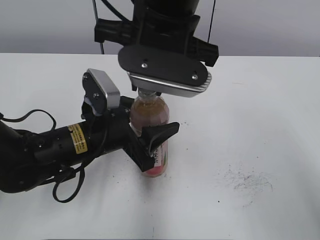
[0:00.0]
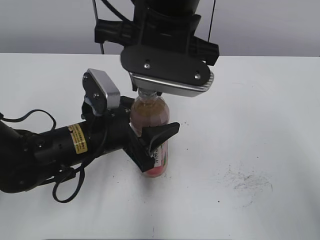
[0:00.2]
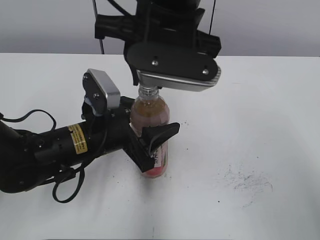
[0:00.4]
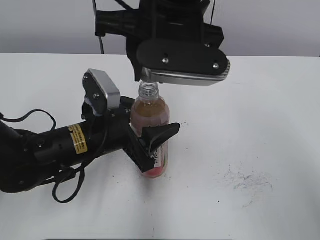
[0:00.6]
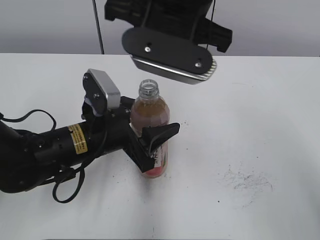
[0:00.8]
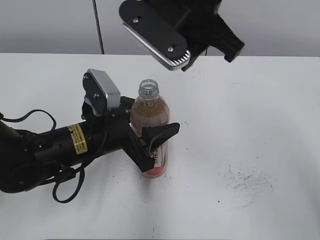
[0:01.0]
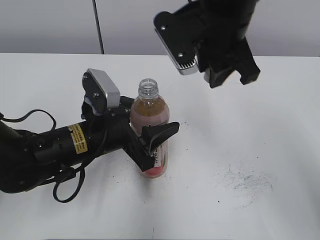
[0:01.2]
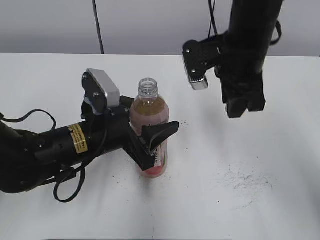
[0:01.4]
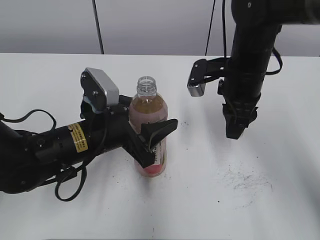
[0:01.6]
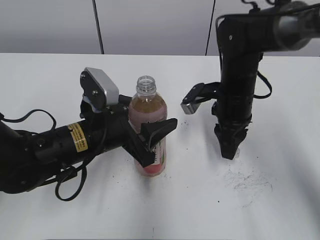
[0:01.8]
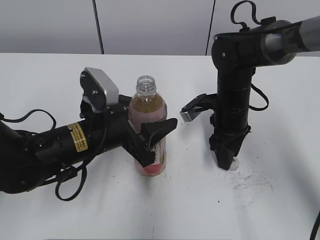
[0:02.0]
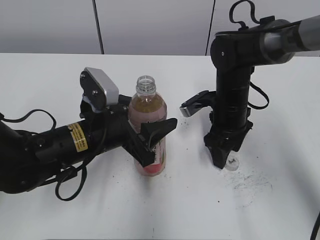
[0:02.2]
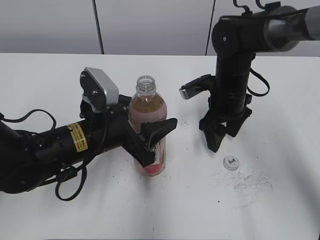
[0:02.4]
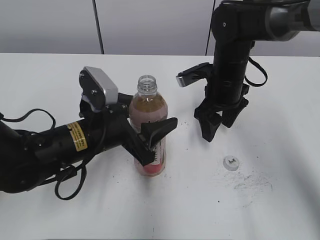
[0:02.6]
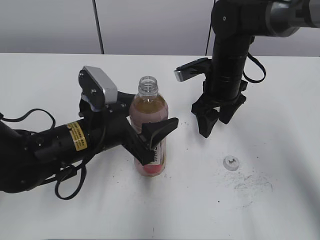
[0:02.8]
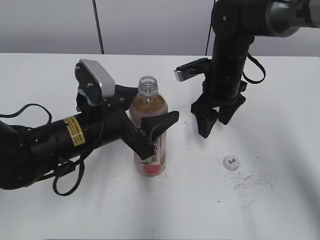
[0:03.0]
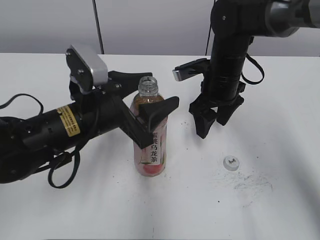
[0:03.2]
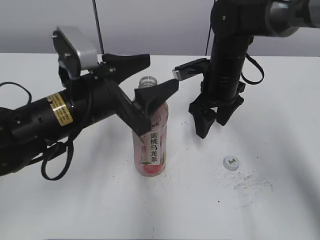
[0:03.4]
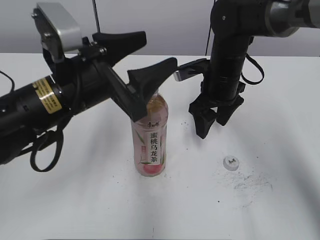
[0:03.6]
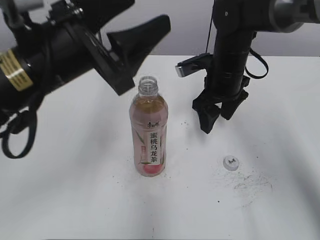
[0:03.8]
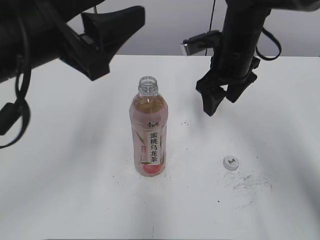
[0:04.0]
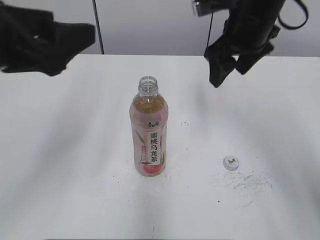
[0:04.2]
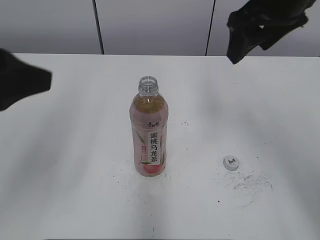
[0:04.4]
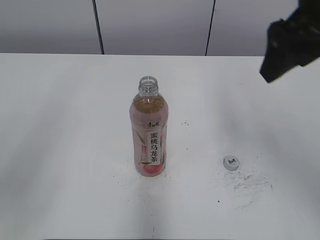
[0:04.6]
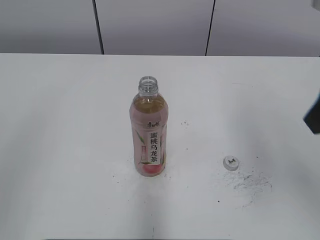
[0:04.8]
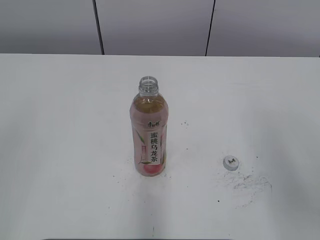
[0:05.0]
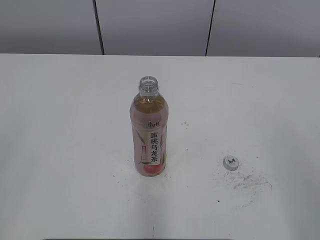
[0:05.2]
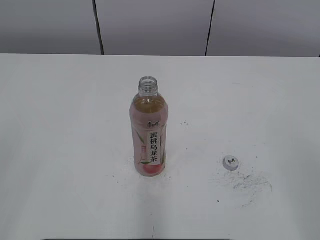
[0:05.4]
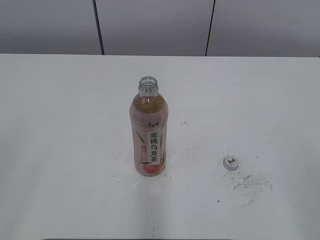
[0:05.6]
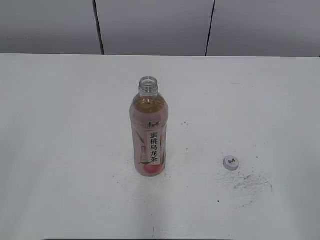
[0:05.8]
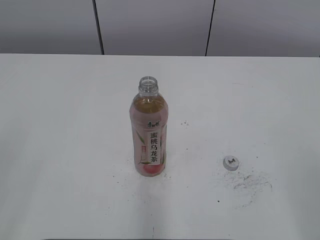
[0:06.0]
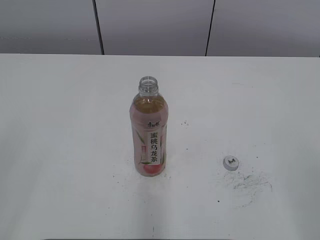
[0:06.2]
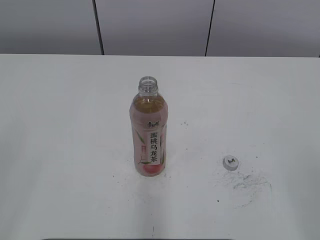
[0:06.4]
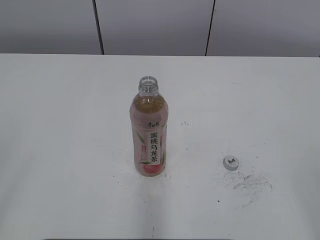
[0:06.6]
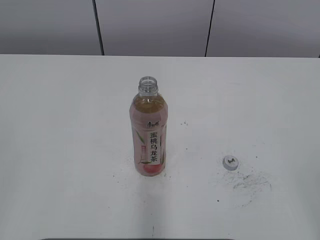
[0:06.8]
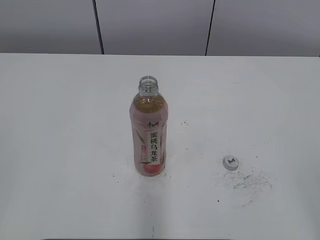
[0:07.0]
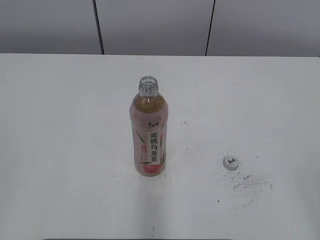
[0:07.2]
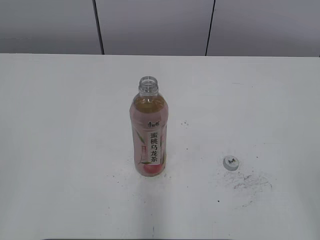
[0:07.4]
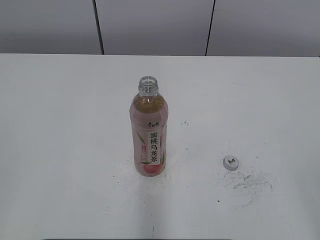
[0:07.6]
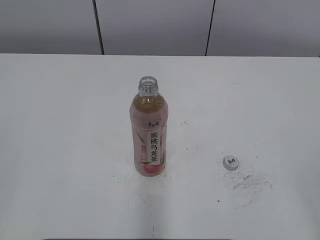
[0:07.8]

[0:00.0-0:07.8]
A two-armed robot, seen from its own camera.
Step, 0:00.2 to 0:02.0: Place the bottle cap on the right.
Step, 0:02.2 to 0:03.0: Place the Peach Oolong Tea with the left hand.
0:00.0 to 0:01.6: The right gripper is displaced to the right, downward and forward by about 20 cm.
0:01.6 to 0:03.2: The right gripper opens.
0:03.2 to 0:04.6: The right gripper is displaced upward and backward by about 25 cm, while the left gripper moves upward, to the left and backward, about 25 cm.
0:04.6 to 0:06.2: The right gripper heads backward and to the right, covering about 30 cm.

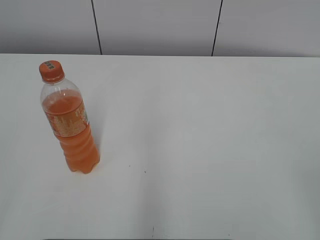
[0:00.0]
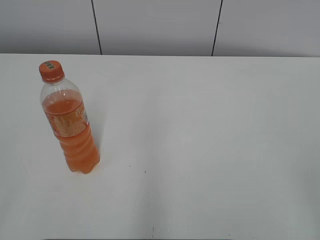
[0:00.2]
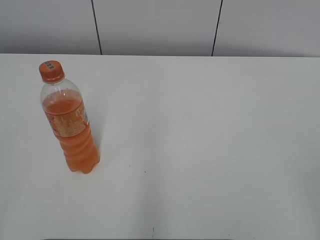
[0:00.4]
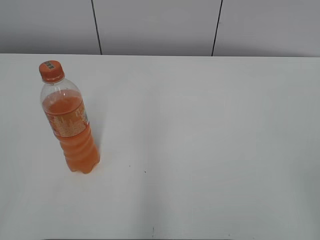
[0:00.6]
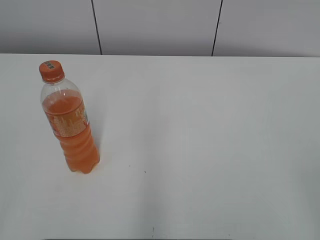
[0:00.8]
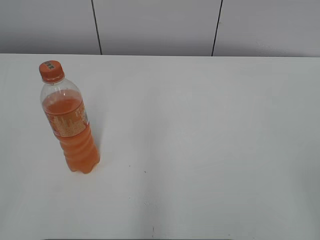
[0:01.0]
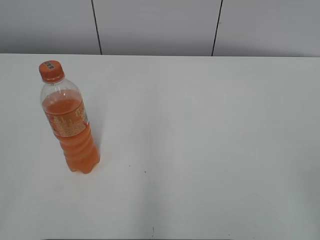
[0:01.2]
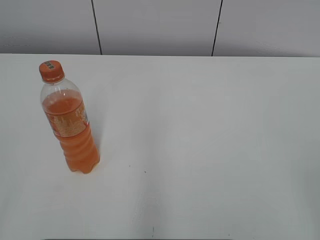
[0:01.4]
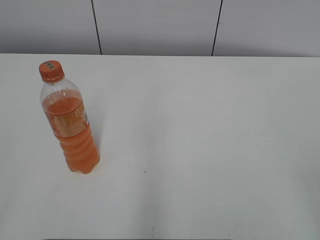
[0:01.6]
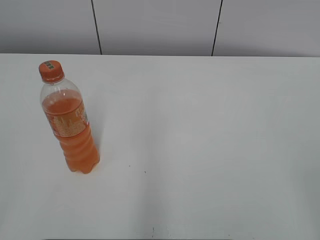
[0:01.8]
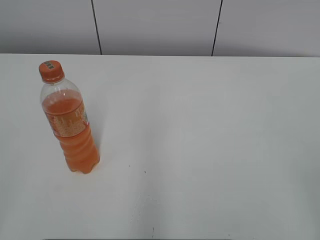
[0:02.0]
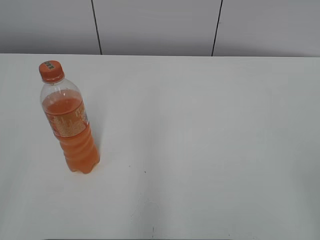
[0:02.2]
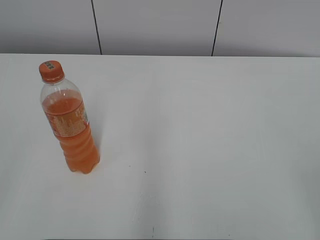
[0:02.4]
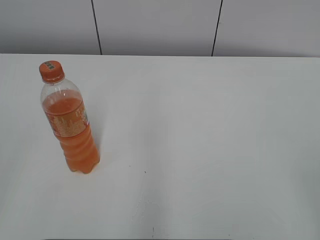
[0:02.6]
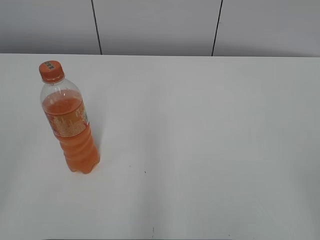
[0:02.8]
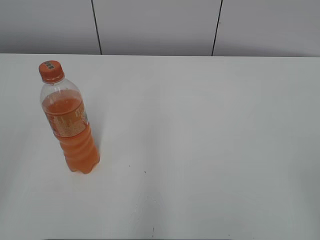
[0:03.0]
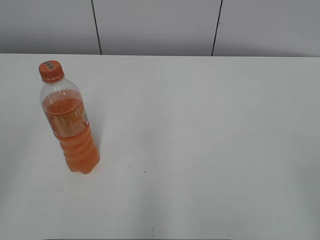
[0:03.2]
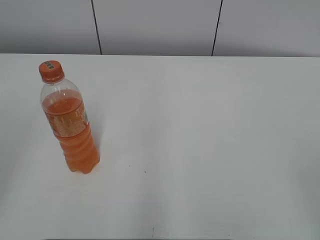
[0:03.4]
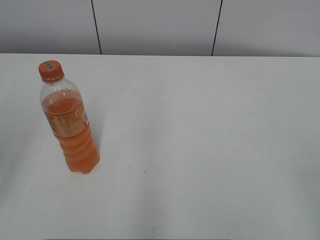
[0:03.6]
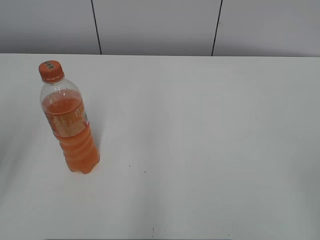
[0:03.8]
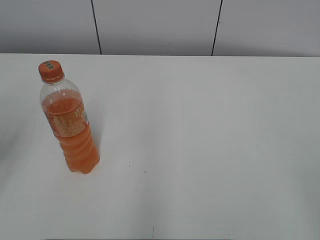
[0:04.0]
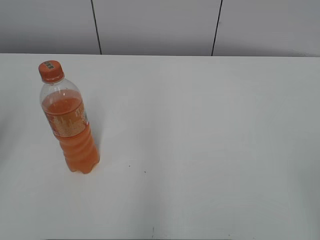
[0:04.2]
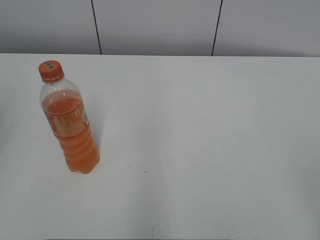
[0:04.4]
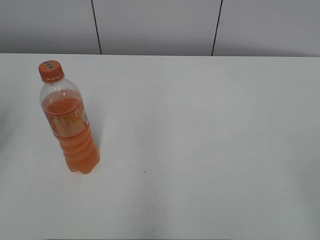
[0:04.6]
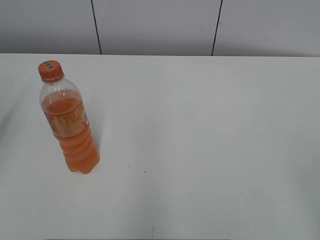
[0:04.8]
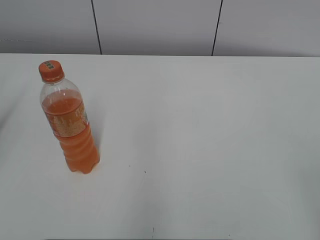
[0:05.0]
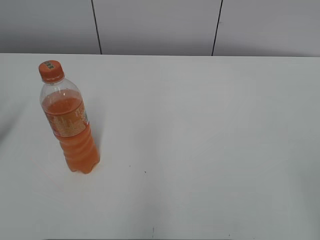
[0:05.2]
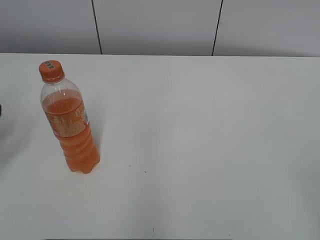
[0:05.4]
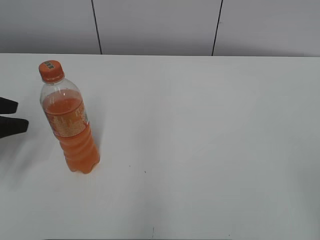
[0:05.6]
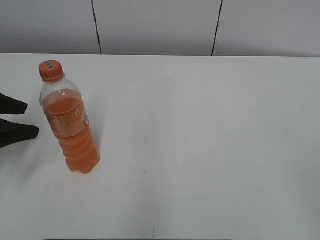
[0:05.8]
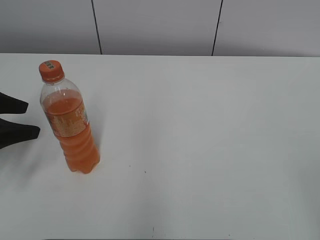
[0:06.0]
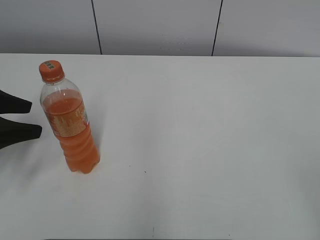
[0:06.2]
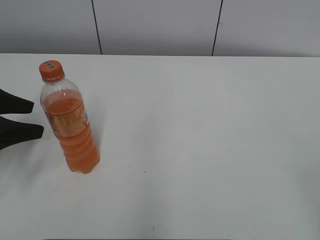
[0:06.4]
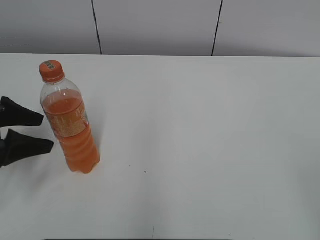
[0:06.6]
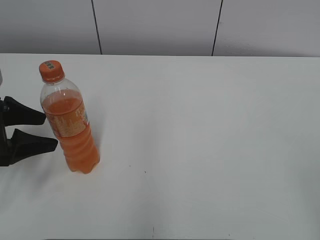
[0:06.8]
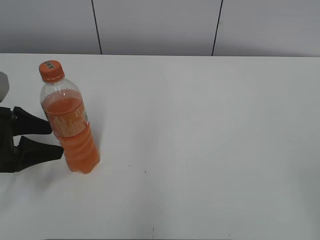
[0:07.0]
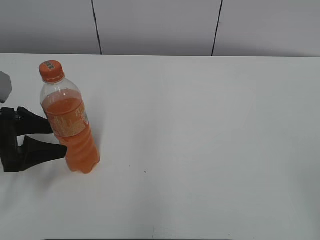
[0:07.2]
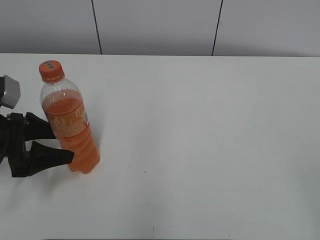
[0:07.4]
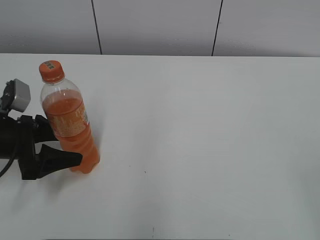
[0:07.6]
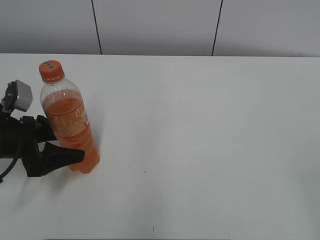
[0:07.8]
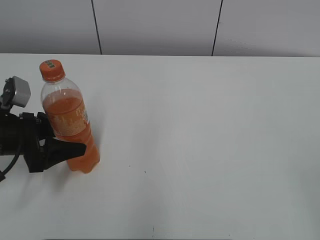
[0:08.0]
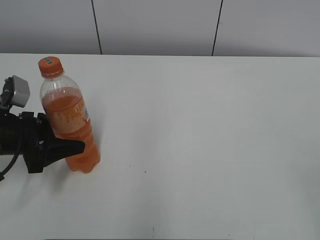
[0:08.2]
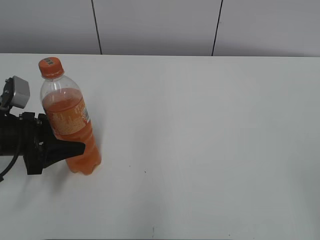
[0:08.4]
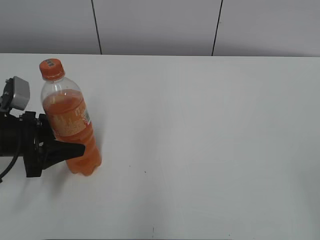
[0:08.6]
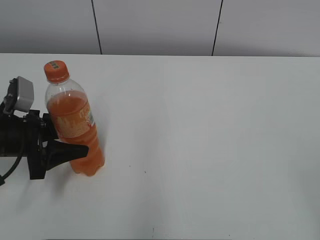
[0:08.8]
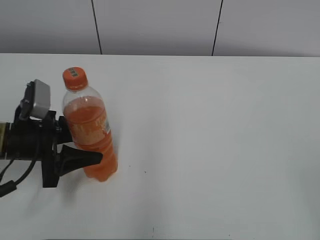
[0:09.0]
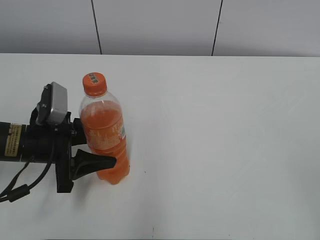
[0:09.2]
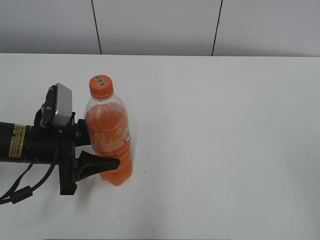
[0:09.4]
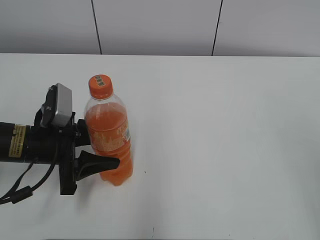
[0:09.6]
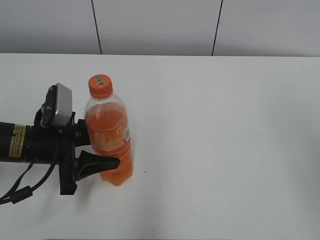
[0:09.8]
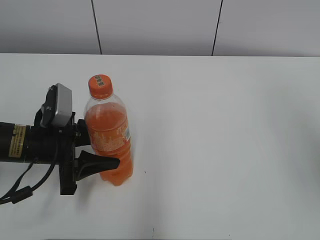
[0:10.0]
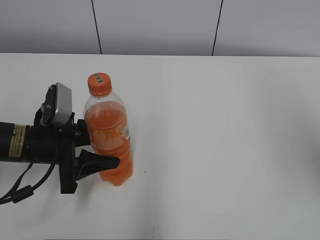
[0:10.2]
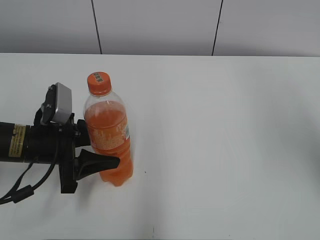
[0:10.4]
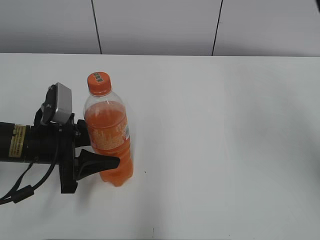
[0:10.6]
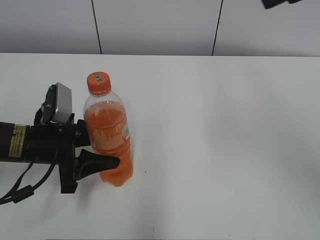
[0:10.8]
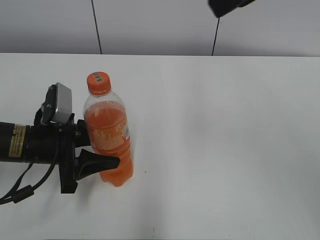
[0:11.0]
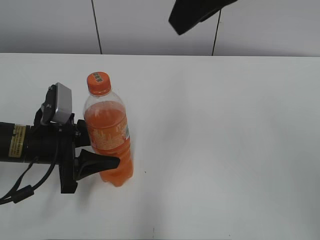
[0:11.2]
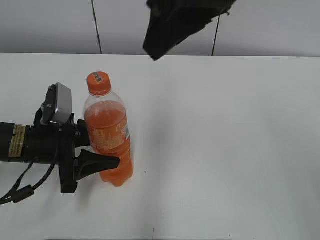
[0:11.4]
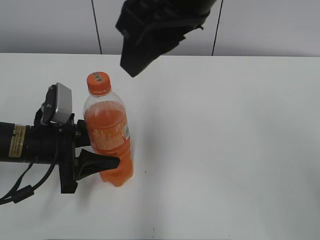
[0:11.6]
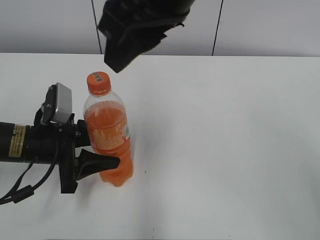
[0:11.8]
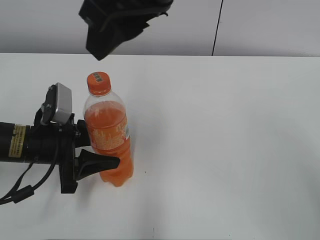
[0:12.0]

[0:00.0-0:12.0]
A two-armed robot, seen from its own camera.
Step, 0:00.0 to 0:08.2: Grab the Mirinda with the left hand.
Step, 0:08.4 to 0:10.2: Move the Mirinda from left to right.
0:04.4 to 0:06.0: The left gripper moves downward, roughly 10 cm.
0:06.0 to 0:07.6: The left gripper goes some 10 cm downward and to the right.
0:07.6 to 0:09.0: The left gripper closes its fingers.
0:09.0 to 0:10.4: The right gripper heads forward and upward, covering about 25 cm, and closes.
0:10.4 to 0:12.0: The right gripper is displaced to the left by about 25 cm.

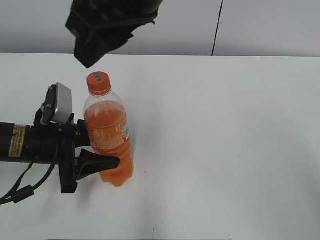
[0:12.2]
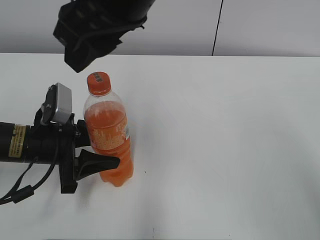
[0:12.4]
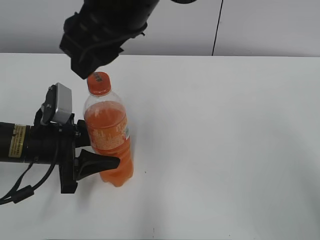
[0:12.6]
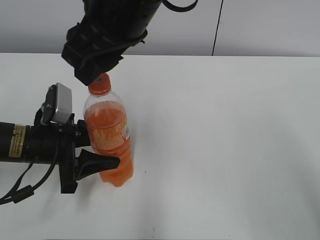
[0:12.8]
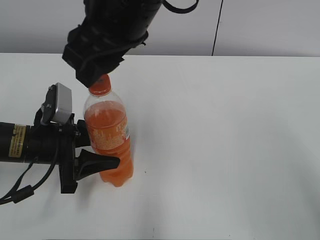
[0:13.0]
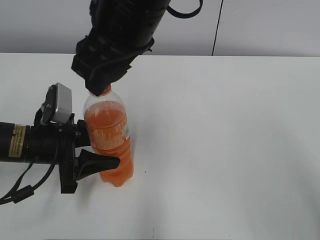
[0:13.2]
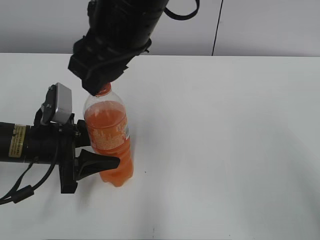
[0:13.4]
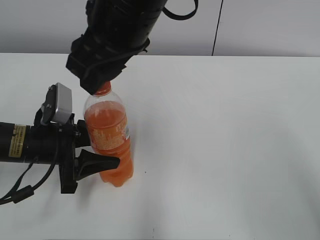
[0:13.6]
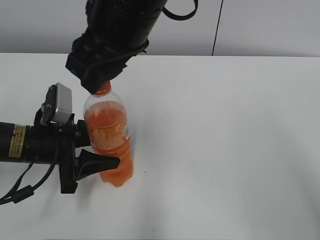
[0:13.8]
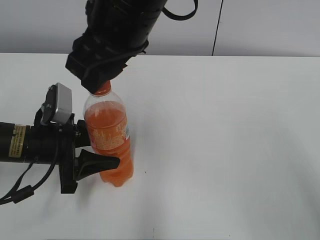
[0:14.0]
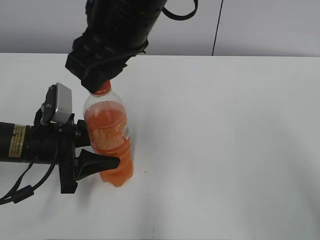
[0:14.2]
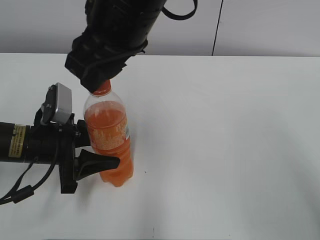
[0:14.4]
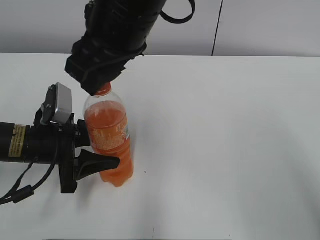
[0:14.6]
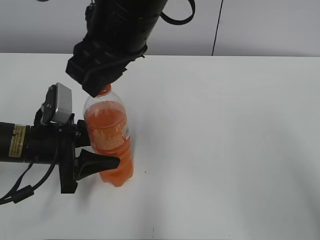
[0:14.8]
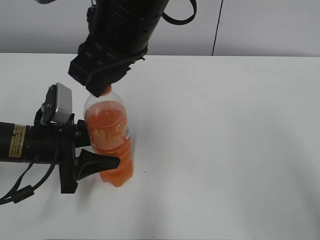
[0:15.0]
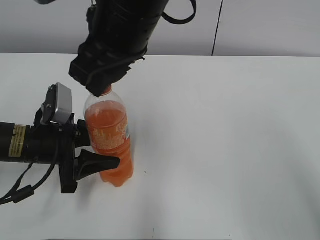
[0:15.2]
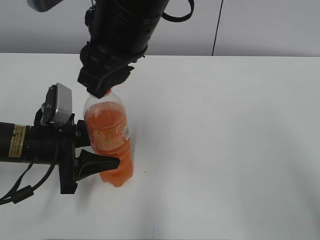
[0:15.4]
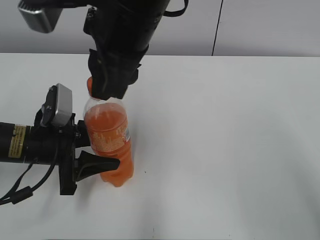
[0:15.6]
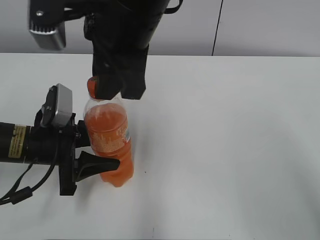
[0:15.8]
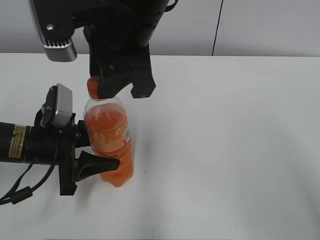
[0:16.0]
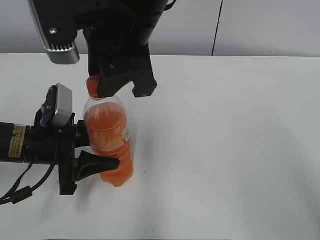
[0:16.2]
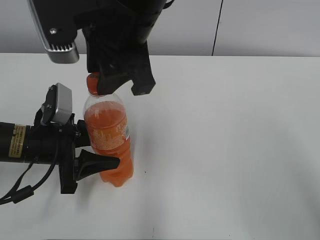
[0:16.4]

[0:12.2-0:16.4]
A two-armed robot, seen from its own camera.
0:12.2 to 0:13.6: There are only small adjustments of the grippers.
0:13.6 to 0:15.0: The right gripper closes its fingers.
